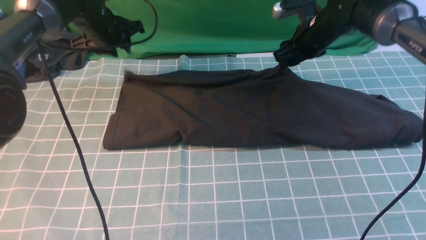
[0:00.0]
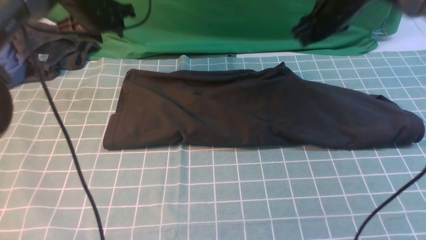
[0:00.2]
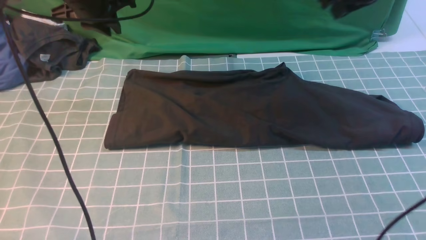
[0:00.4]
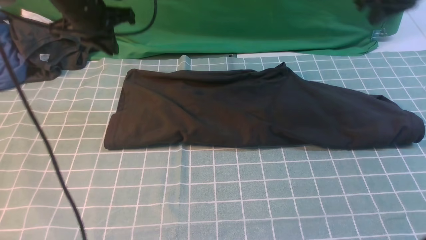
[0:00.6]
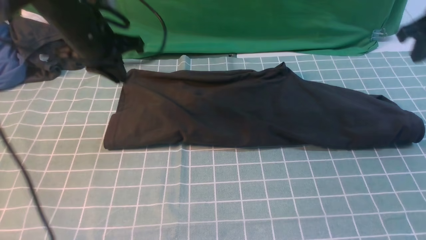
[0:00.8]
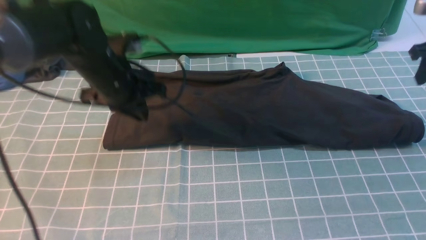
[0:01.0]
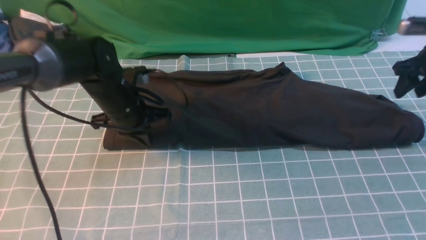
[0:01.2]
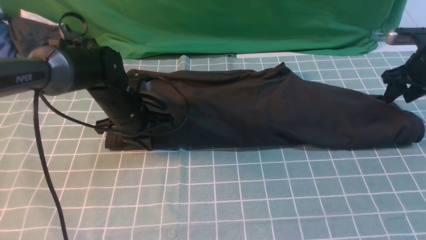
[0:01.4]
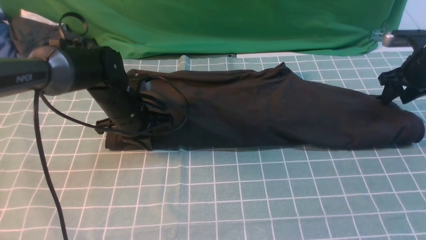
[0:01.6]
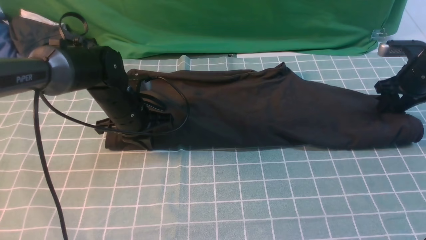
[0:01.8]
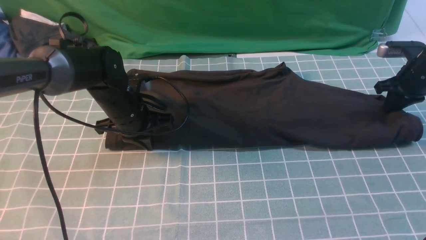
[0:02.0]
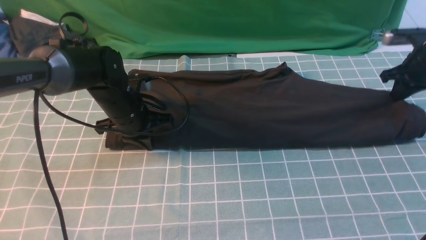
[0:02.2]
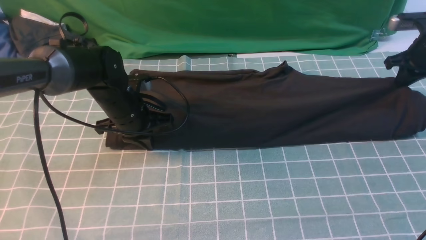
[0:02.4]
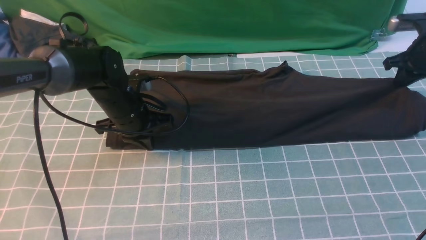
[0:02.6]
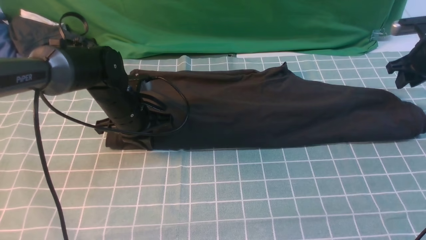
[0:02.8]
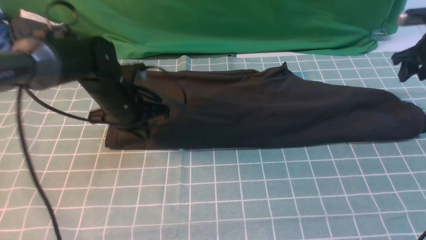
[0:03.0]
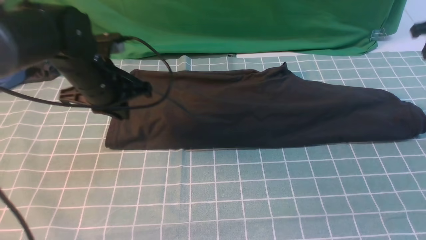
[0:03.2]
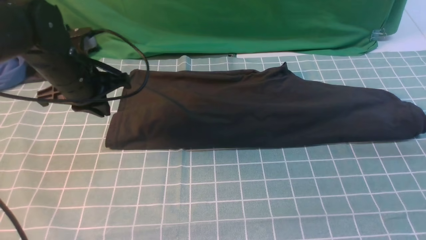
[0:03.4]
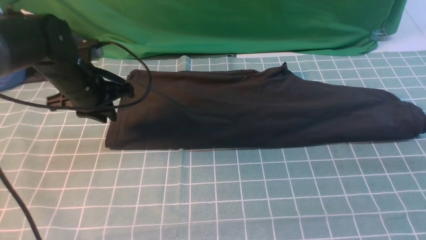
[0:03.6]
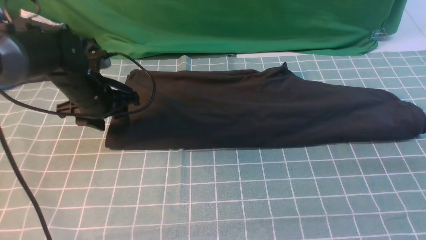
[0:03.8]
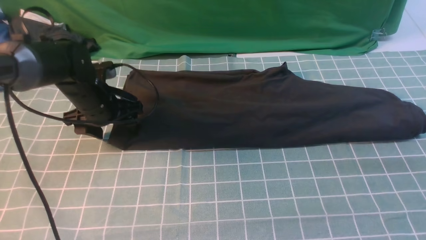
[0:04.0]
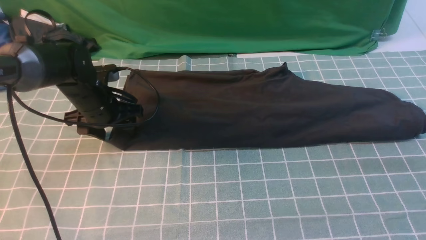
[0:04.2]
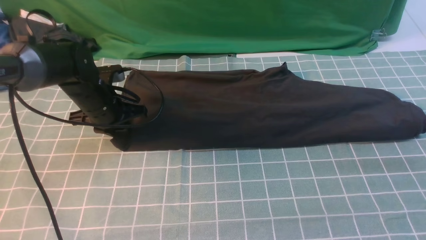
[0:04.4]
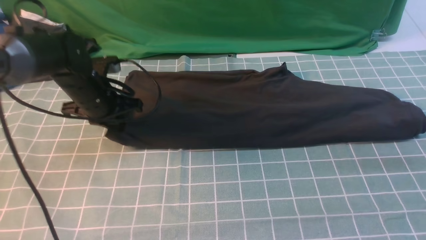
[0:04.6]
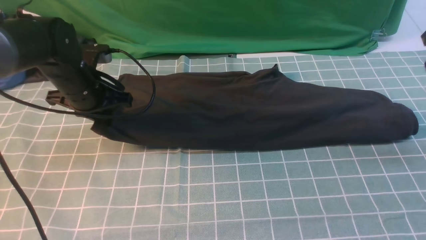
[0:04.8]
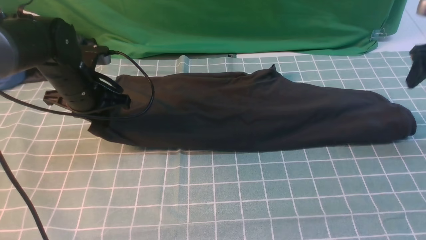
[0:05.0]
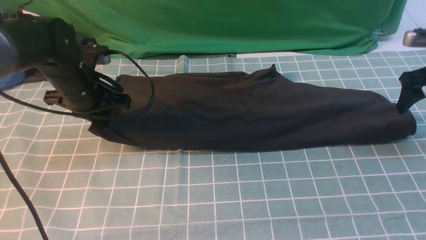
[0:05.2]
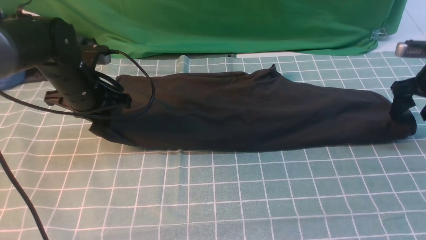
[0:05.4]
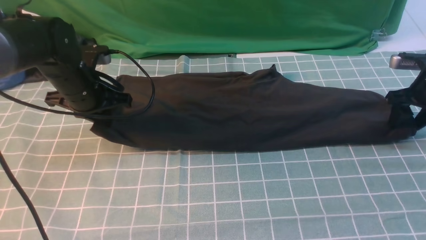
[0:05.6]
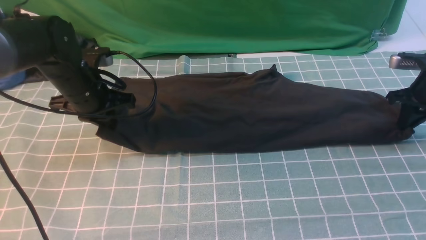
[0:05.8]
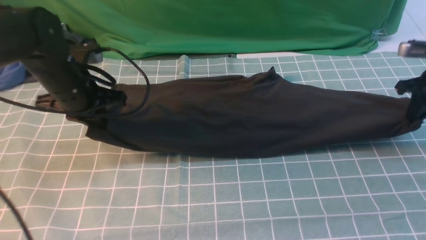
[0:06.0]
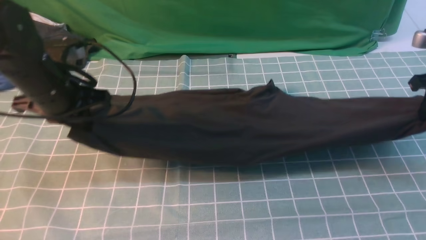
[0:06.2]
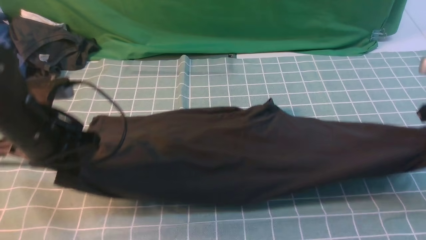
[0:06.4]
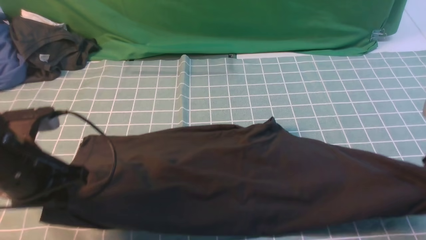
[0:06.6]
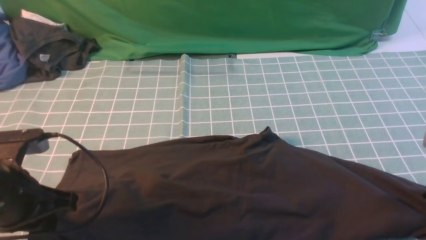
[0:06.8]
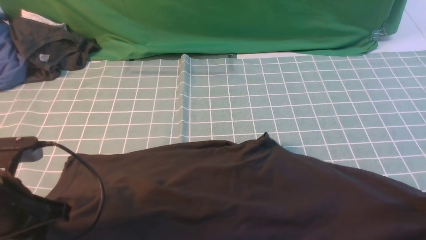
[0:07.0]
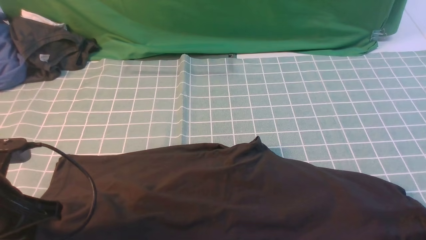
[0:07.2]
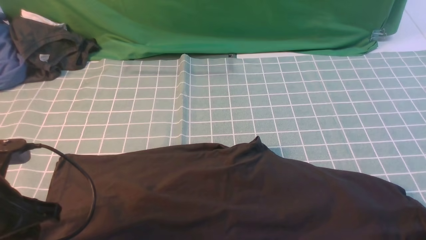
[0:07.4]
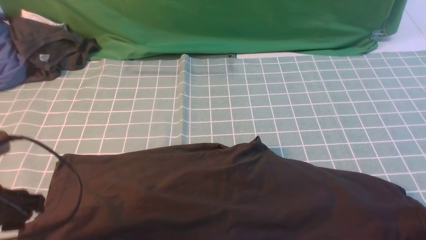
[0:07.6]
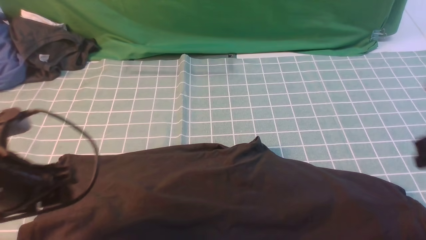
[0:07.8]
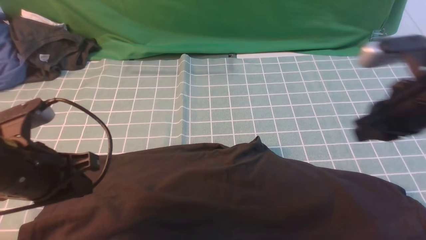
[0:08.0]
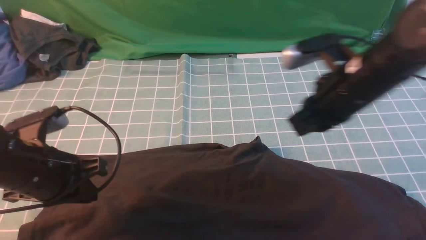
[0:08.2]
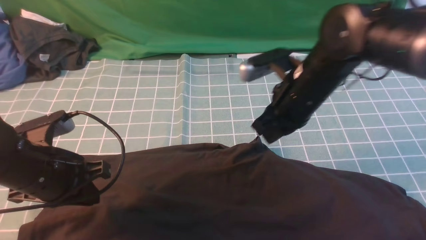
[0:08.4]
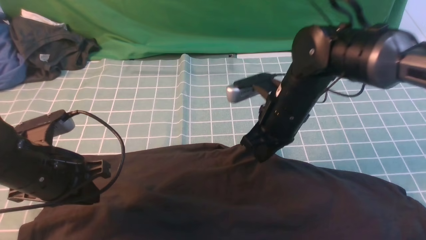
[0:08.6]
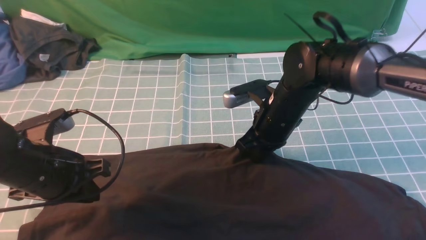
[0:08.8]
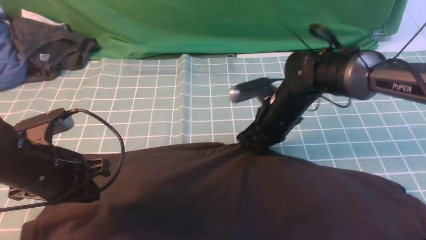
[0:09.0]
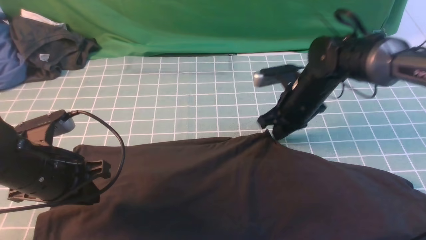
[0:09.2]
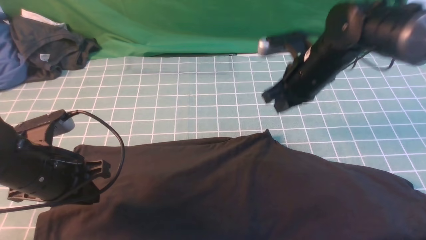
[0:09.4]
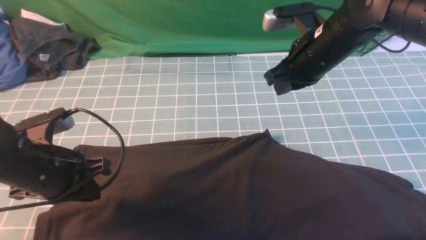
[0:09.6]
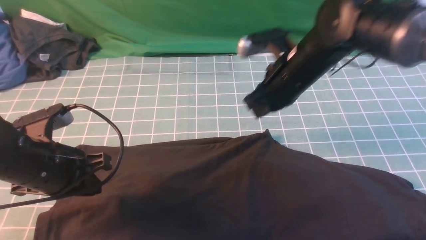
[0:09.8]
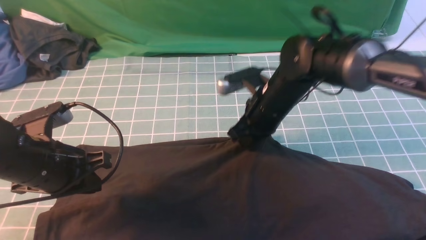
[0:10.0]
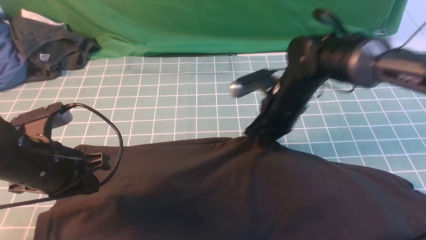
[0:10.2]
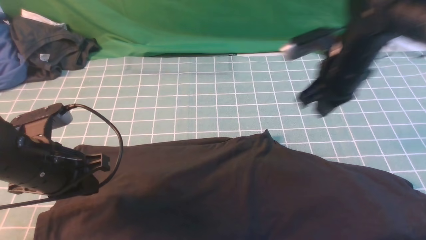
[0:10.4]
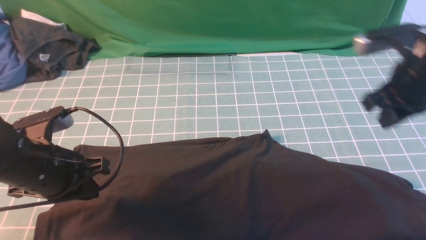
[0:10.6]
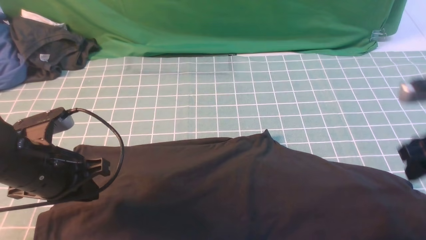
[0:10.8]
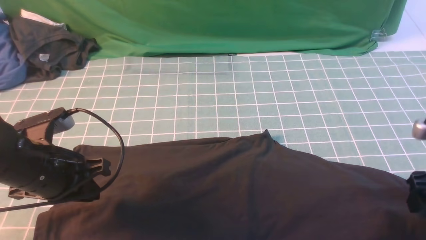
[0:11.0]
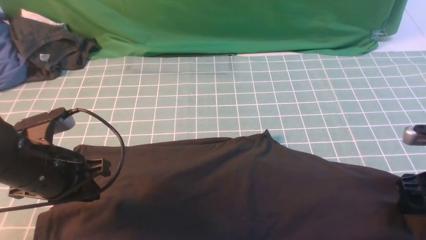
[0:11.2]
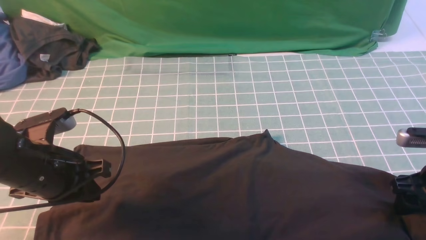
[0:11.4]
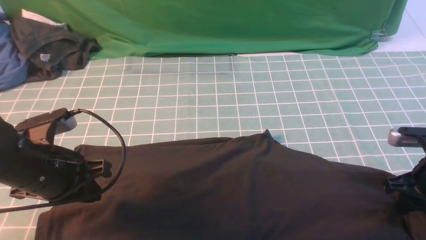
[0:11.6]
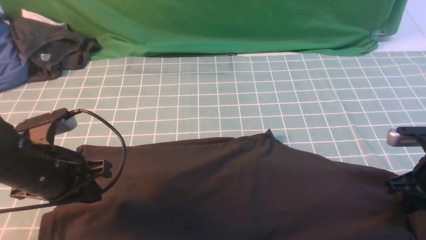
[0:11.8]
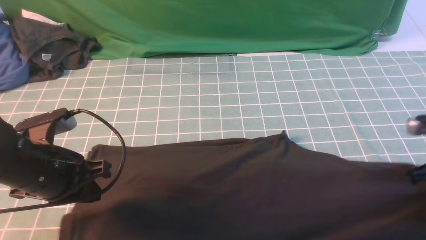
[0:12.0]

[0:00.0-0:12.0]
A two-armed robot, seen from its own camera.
Step, 0:00.2 to 0:11.6: use the right arm to clamp the right edge of the fabric.
0:00.0 to 0:01.6: The right gripper travels to the right by some 20 cm, and closes and opens again, while the left gripper travels backward, downward and to the right by approximately 15 cm, and closes.
0:01.6 to 0:03.0: The right gripper moves upward, roughly 5 cm, and closes, then opens again.
0:03.0 to 0:04.4: The right gripper goes some 15 cm upward and backward, and closes its fingers. The left gripper changes place by some 5 cm, and opens.
0:04.4 to 0:06.0: The right gripper moves downward, about 10 cm, and opens, then closes again, while the left gripper moves upward, approximately 5 cm.
0:06.0 to 0:07.6: The grippers both shift backward by some 20 cm. The left gripper opens. Meanwhile the right gripper opens.
0:07.6 to 0:09.0: The right gripper heads to the left and forward, covering approximately 25 cm, and closes up, while the left gripper ends up roughly 5 cm from where it was, and closes.
0:09.0 to 0:10.4: The right gripper shifts some 15 cm upward and to the right.
0:10.4 to 0:12.0: The right gripper goes approximately 20 cm to the right, backward and downward, and opens and closes again.

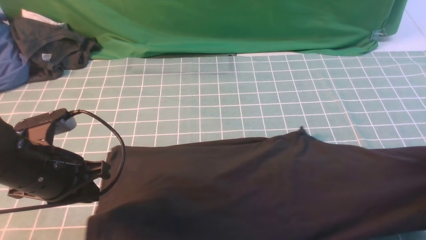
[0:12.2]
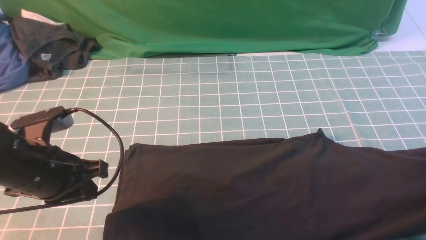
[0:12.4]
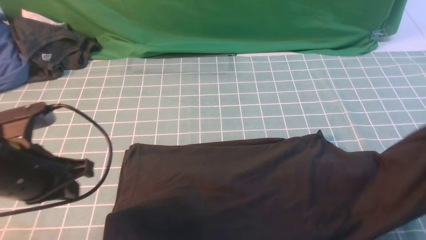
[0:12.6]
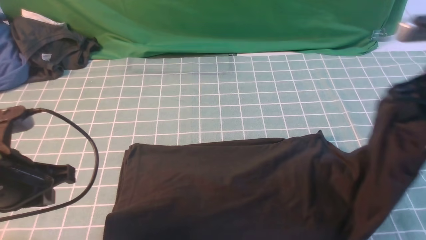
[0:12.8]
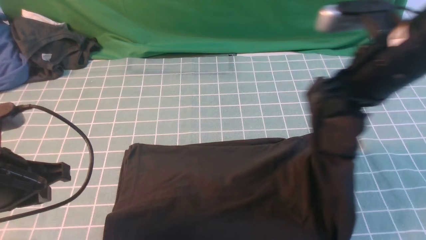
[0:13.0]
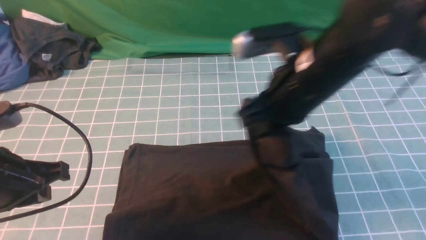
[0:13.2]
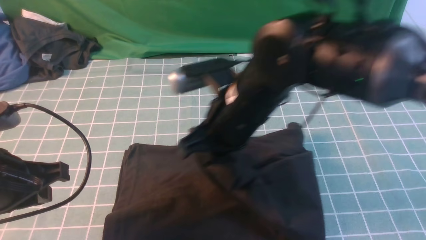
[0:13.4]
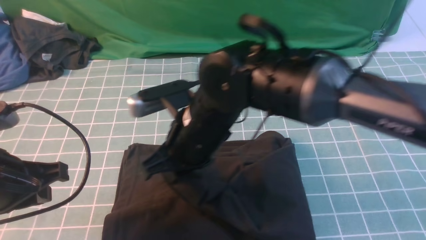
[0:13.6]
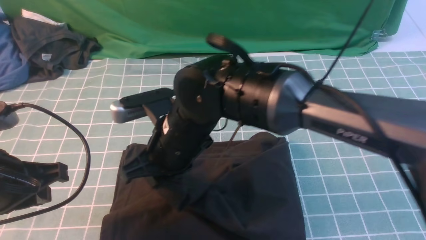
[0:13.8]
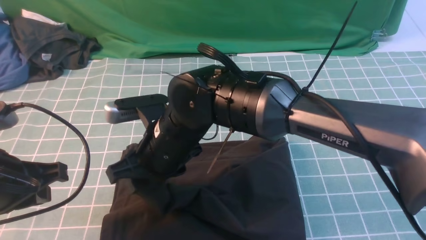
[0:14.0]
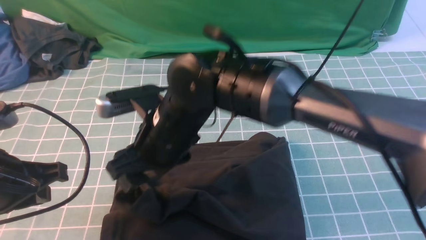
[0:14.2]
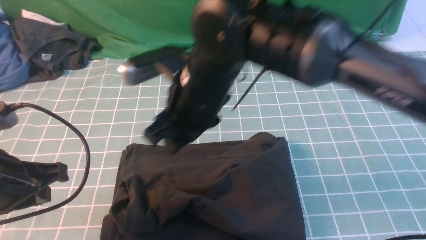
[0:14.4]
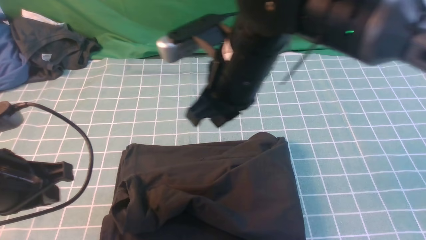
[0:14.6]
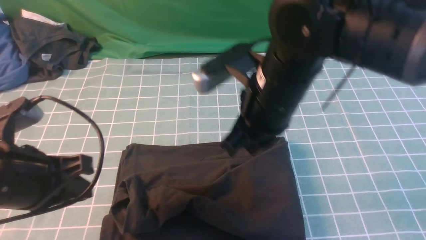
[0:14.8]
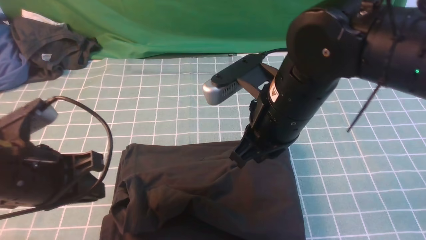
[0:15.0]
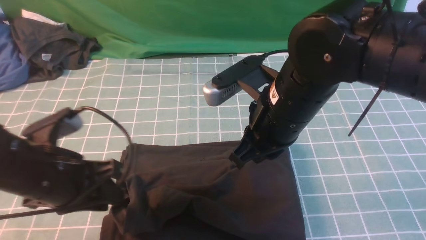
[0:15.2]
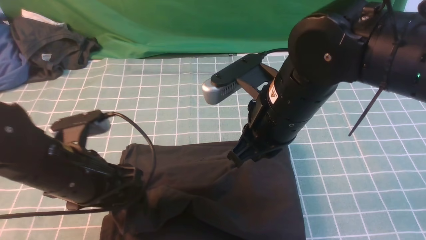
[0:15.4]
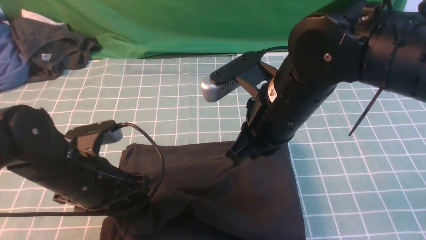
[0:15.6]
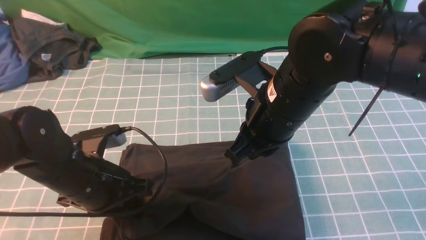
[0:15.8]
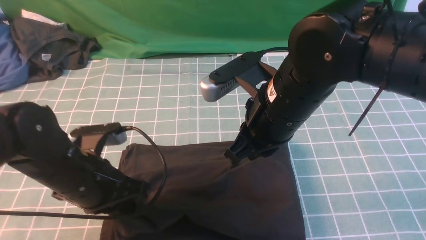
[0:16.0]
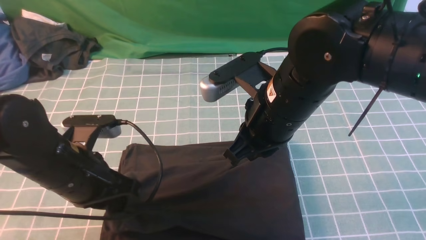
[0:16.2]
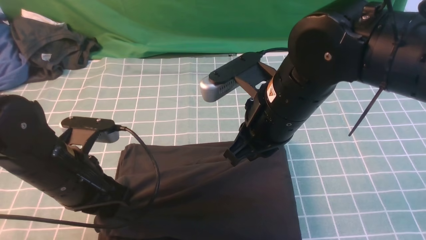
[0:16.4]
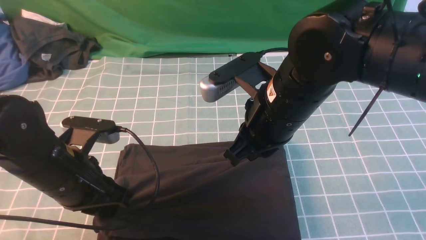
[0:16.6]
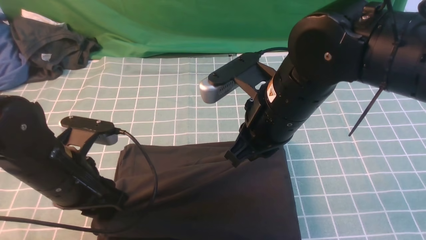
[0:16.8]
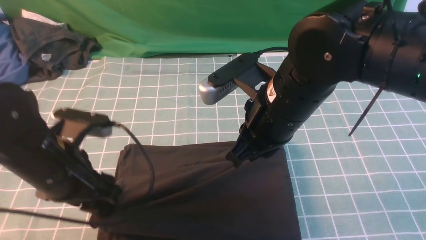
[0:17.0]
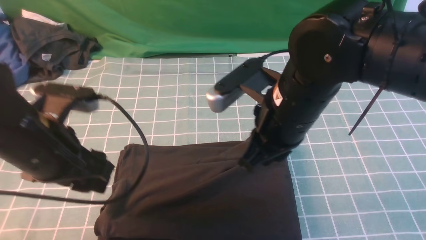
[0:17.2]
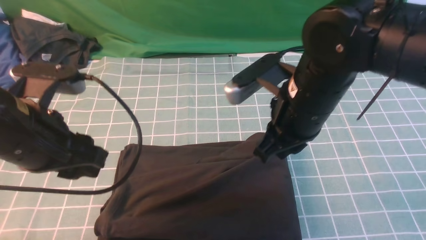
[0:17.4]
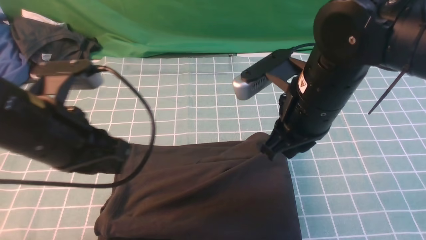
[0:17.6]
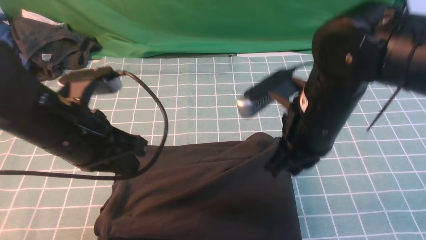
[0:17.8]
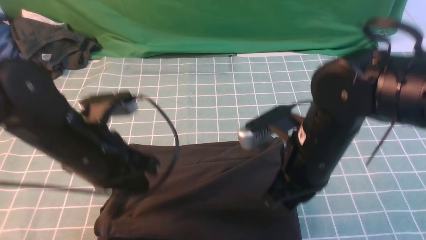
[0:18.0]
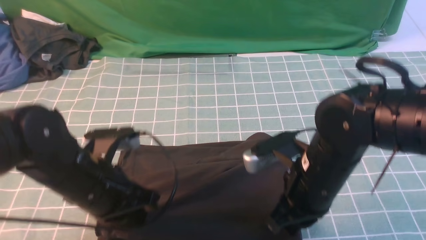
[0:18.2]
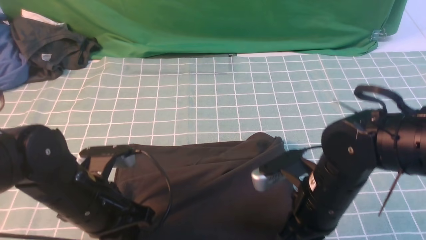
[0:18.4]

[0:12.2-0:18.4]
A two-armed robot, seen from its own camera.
Step, 0:12.2 to 0:14.2: use the right arm to drag the right edge of the fabric to the left and folds it over the left edge.
0:12.2 to 0:13.8: The right gripper travels to the left by some 40 cm. Meanwhile the left gripper shifts by about 5 cm.
0:13.8 to 0:15.4: The right gripper shifts some 15 cm to the right and upward, and opens and closes again; the left gripper goes some 10 cm to the right and downward, and opens its fingers.
0:15.4 to 0:16.8: The left gripper closes, then opens again.
0:16.8 to 0:18.4: The left gripper closes up, while the right gripper travels downward and to the right by about 15 cm.
